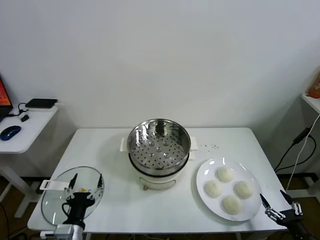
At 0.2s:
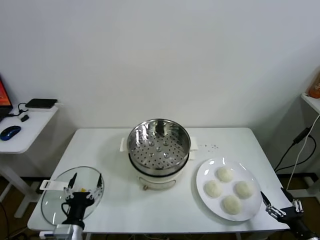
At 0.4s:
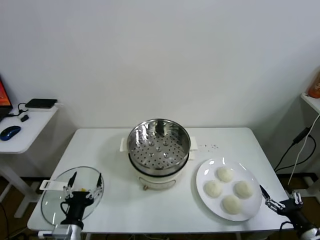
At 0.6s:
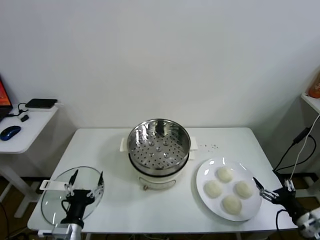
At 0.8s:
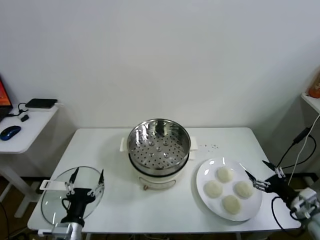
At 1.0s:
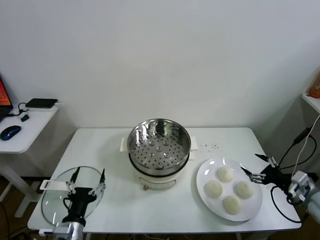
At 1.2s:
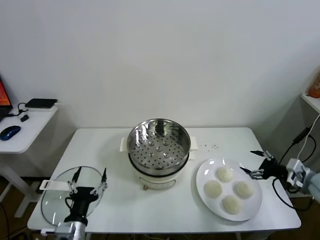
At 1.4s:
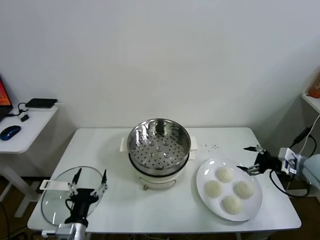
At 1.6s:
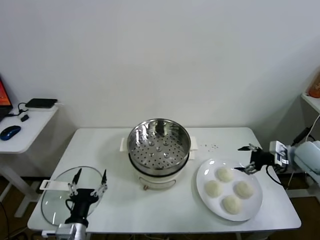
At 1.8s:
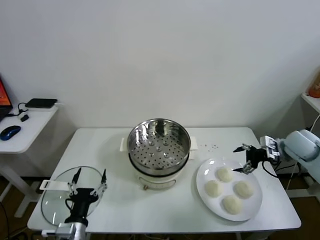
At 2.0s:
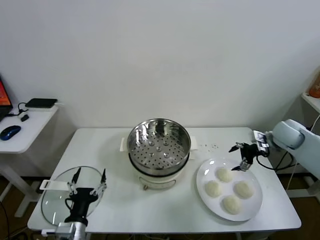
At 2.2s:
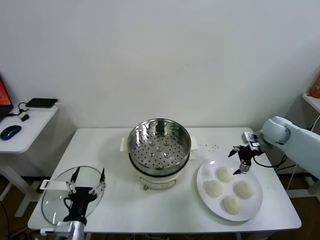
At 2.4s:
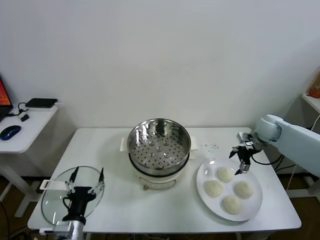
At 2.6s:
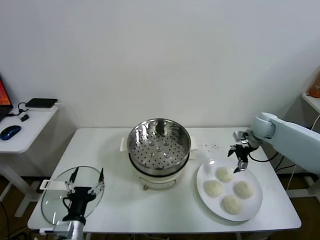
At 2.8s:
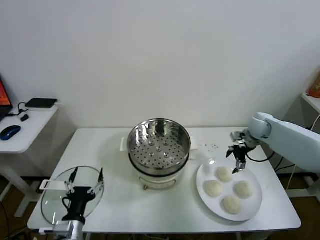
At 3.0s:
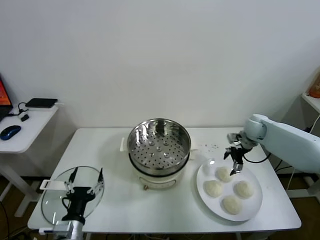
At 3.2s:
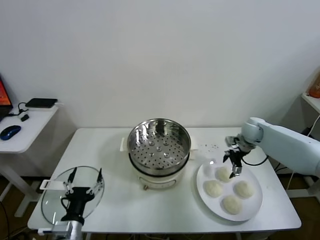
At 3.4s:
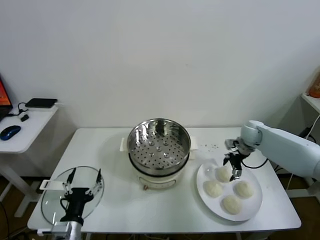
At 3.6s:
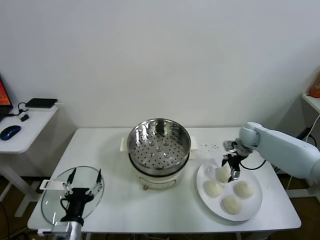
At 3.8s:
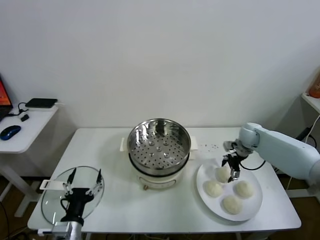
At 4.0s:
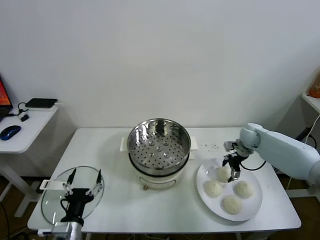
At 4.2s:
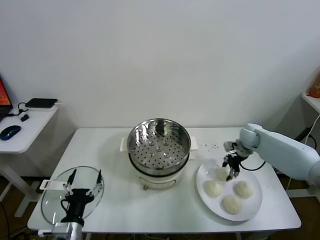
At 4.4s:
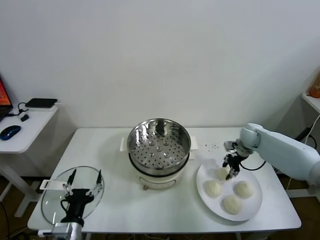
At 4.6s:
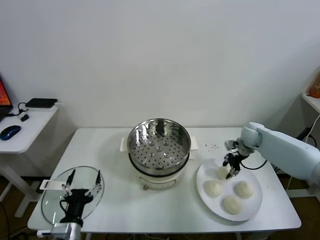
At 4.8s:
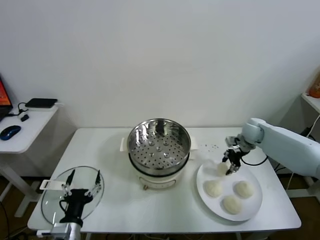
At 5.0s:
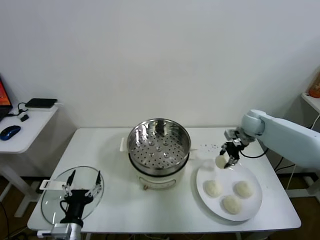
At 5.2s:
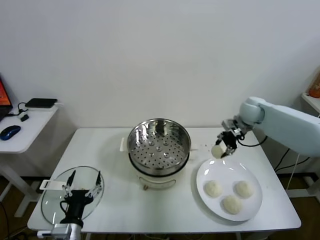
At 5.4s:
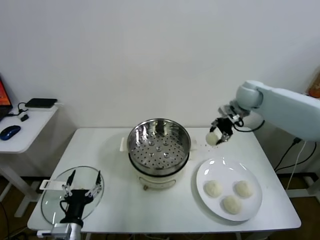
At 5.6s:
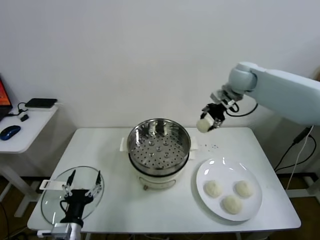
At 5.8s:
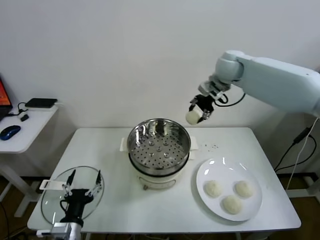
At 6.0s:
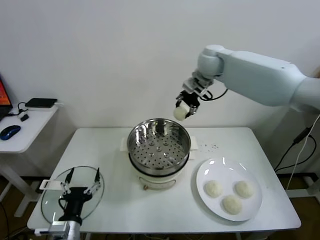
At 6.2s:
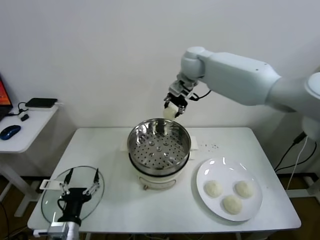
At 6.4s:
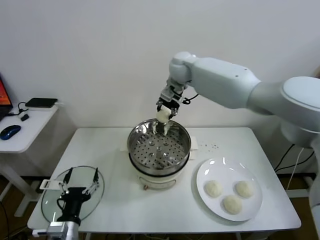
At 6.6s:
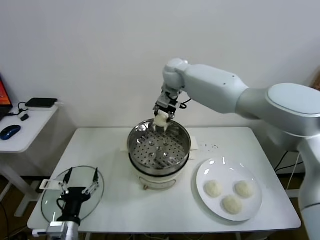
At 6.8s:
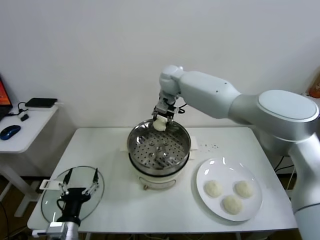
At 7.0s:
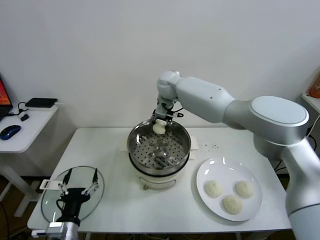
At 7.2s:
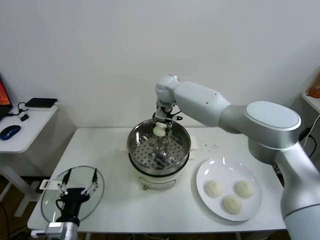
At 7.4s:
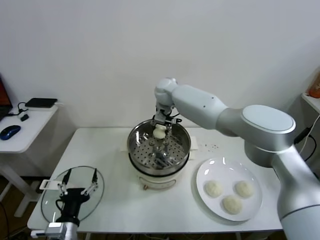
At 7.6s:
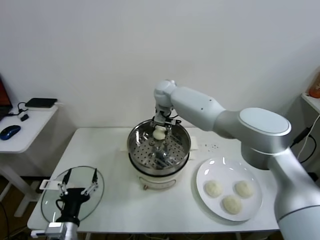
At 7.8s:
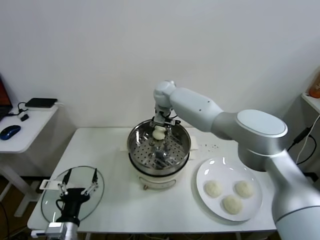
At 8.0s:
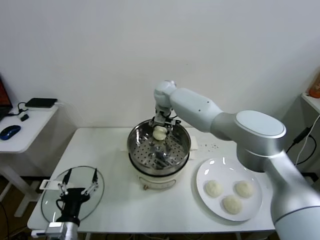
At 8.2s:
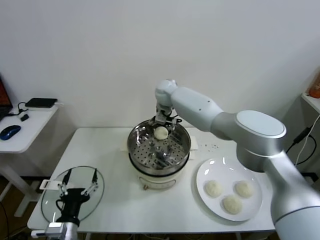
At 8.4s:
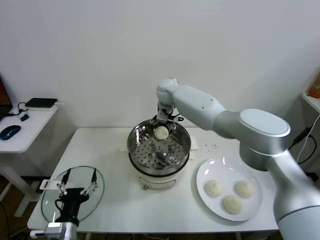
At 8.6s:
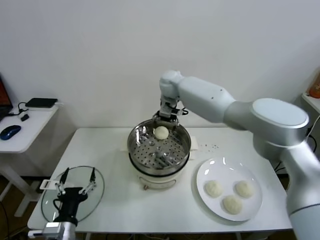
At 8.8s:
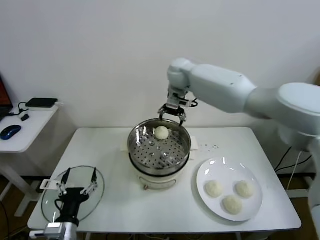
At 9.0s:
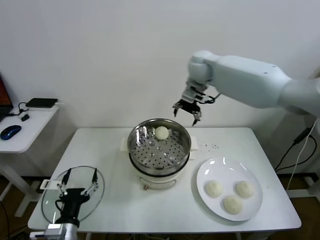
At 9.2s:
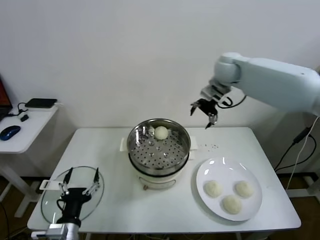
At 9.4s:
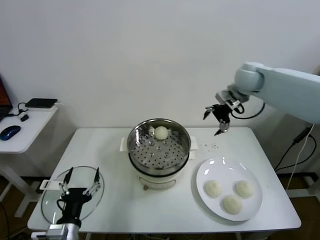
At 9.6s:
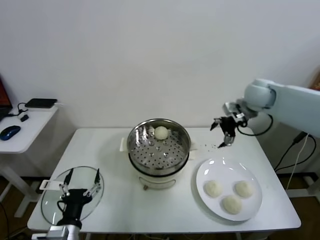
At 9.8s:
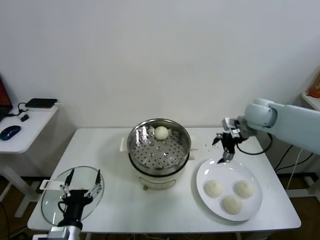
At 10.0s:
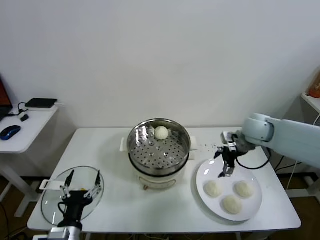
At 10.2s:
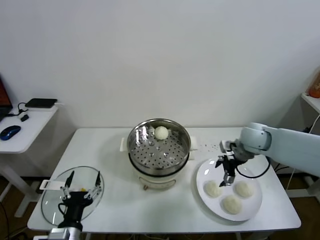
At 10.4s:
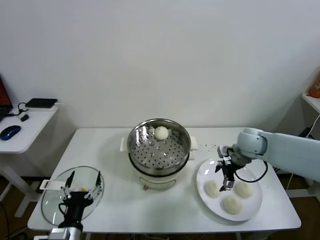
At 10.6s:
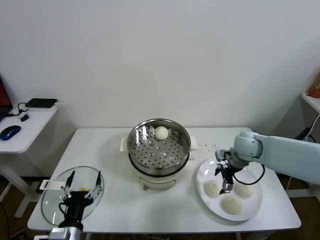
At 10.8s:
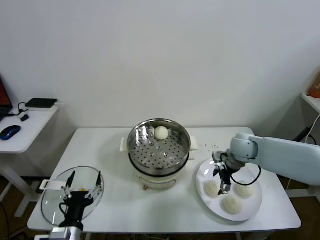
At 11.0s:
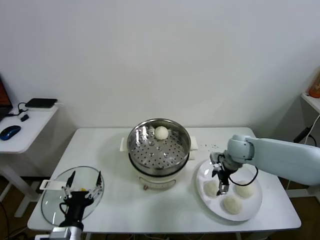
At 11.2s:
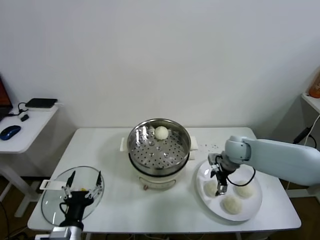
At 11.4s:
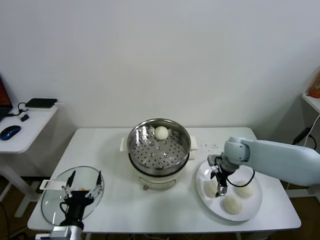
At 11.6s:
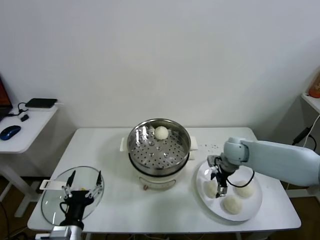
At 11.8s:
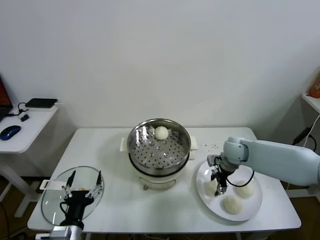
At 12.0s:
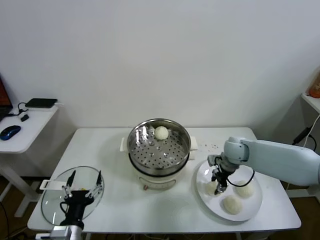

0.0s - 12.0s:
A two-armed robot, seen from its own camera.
Task of the whole recording: take steamed baozi put them in steamer.
Step, 0.0s - 4.4s: Grasp the baozi in the plate with right gripper.
Step, 4.6s - 8.2s: Place the baozi on the steamer with right gripper.
1.6s - 3.0s: The right gripper moves forward and to the left, roughly 15 cm.
3.0s - 4.4s: The right gripper closes up.
4.4s - 6.0s: The right gripper goes approximately 35 cm upward and to the left.
6.0s - 7.6s: The right gripper travels downward and to the left by about 20 cm.
7.6s - 9.0s: The right gripper goes some 20 cm to the right and upward, and opens up.
9.0s - 10.4s: The right gripper shifts roughly 30 cm downward, backward and to the right.
10.4s - 12.0s: The right gripper moves downward, roughly 5 cm, and closes up.

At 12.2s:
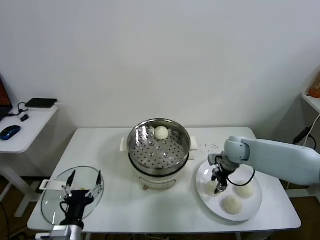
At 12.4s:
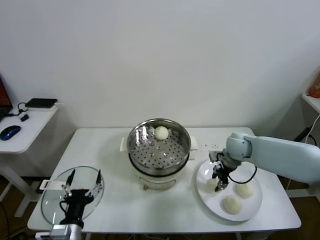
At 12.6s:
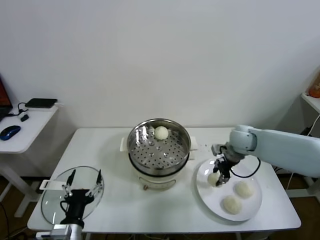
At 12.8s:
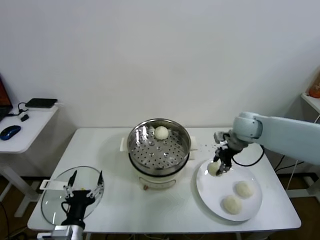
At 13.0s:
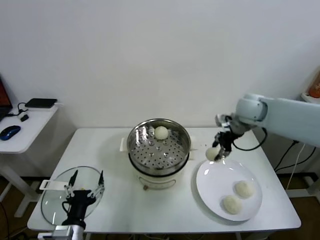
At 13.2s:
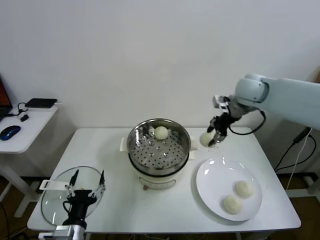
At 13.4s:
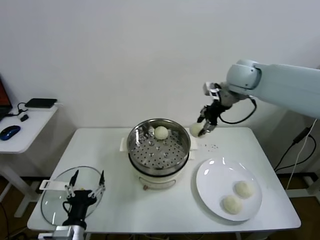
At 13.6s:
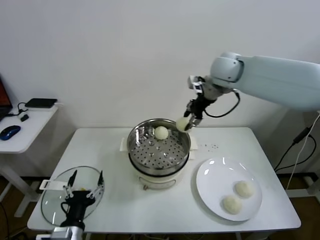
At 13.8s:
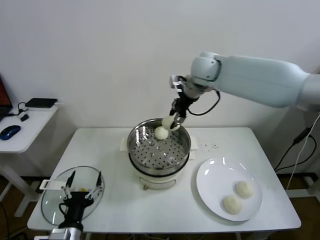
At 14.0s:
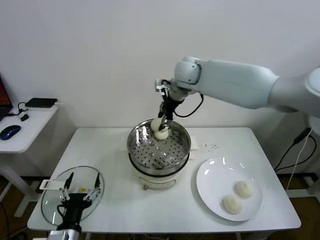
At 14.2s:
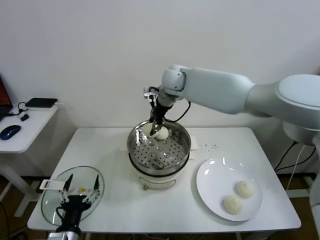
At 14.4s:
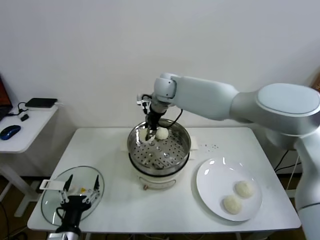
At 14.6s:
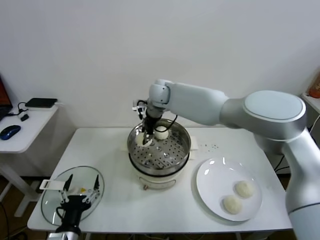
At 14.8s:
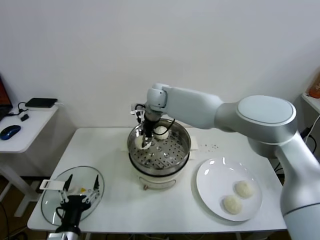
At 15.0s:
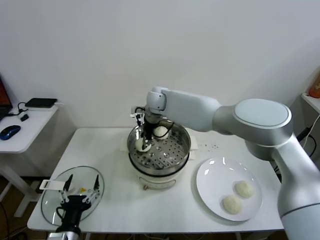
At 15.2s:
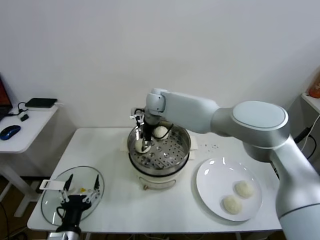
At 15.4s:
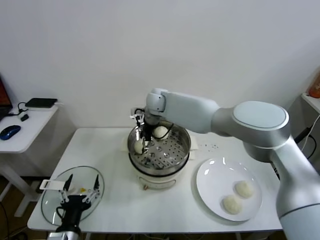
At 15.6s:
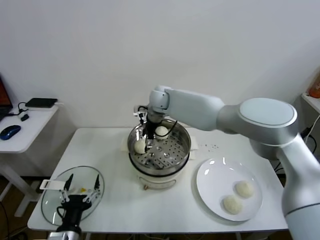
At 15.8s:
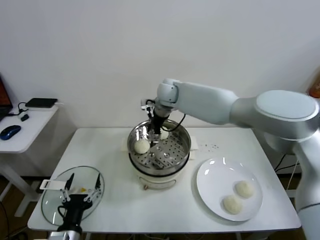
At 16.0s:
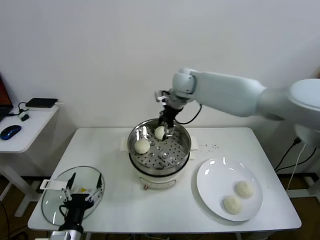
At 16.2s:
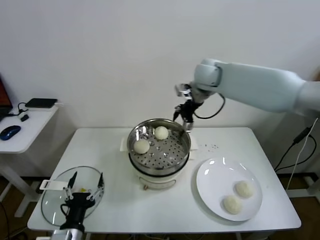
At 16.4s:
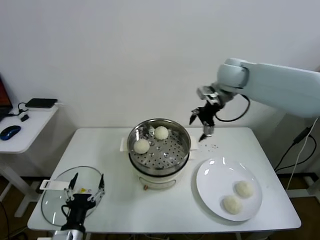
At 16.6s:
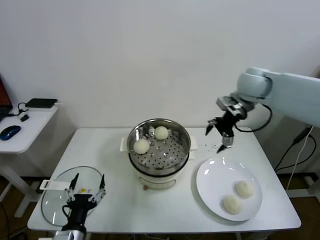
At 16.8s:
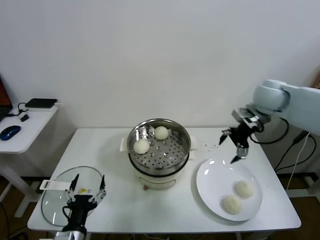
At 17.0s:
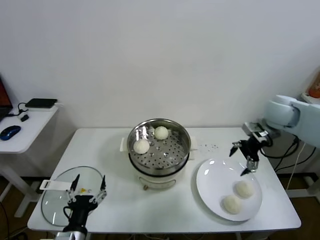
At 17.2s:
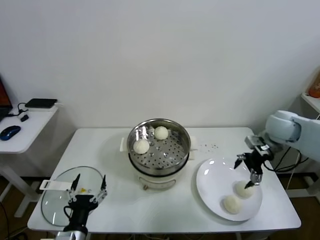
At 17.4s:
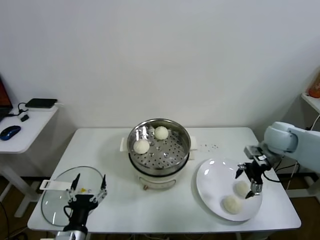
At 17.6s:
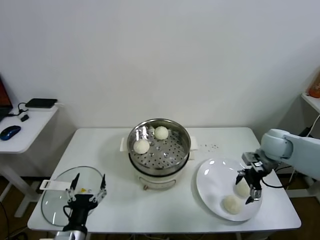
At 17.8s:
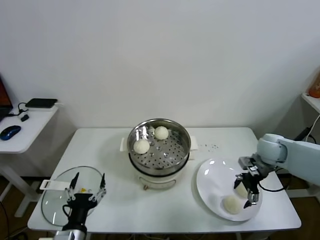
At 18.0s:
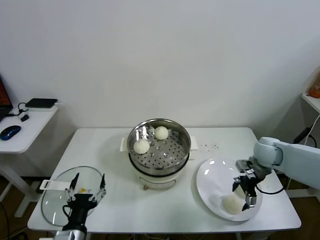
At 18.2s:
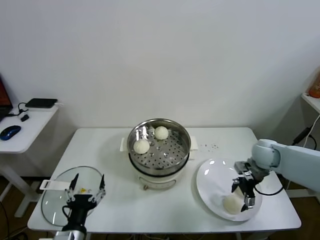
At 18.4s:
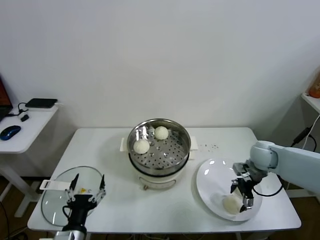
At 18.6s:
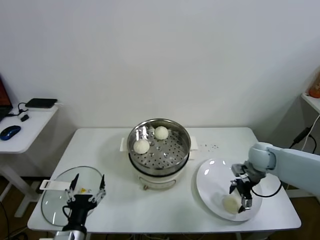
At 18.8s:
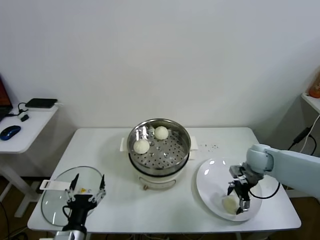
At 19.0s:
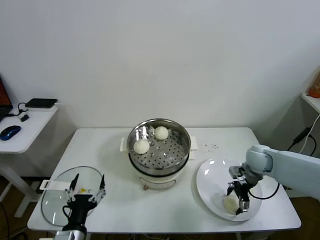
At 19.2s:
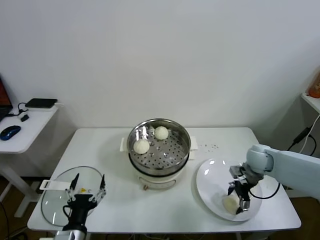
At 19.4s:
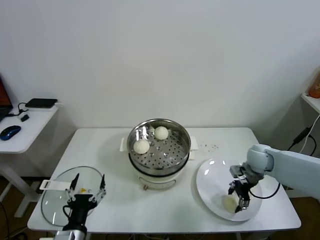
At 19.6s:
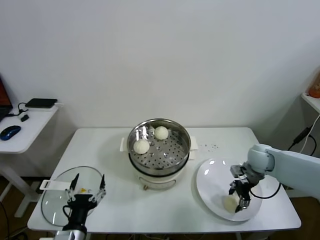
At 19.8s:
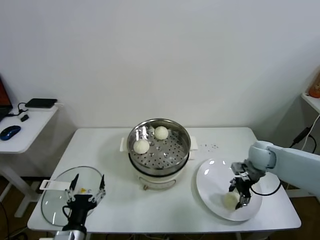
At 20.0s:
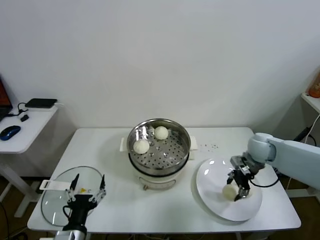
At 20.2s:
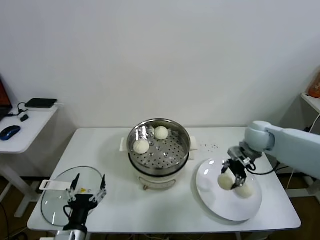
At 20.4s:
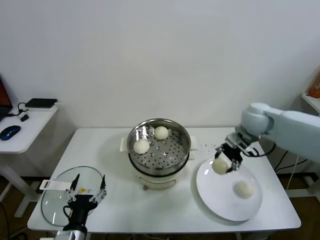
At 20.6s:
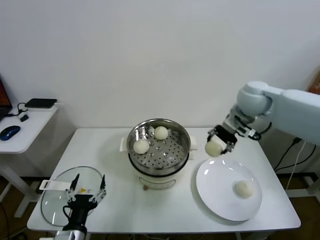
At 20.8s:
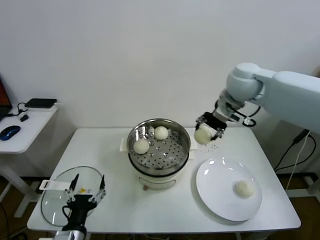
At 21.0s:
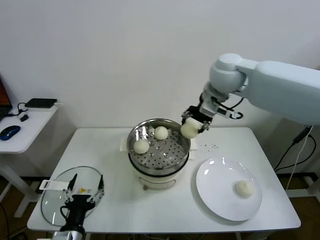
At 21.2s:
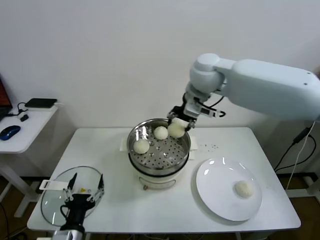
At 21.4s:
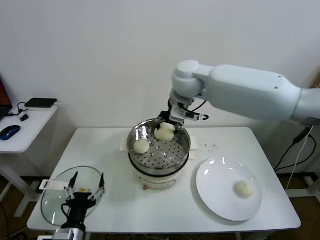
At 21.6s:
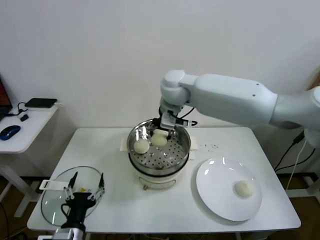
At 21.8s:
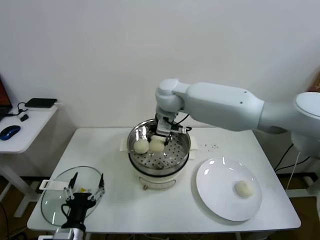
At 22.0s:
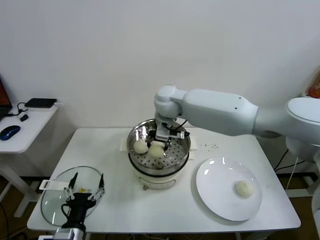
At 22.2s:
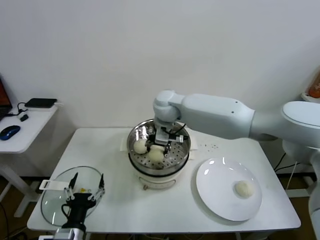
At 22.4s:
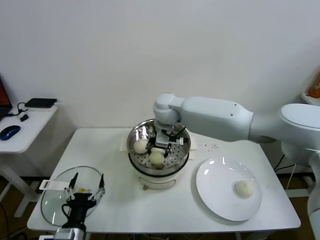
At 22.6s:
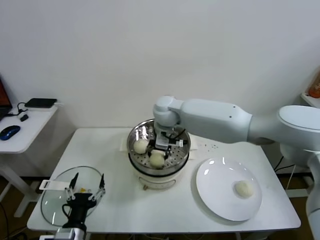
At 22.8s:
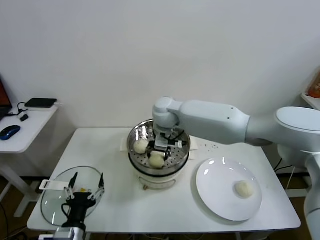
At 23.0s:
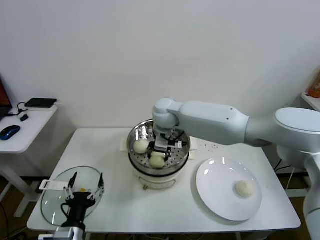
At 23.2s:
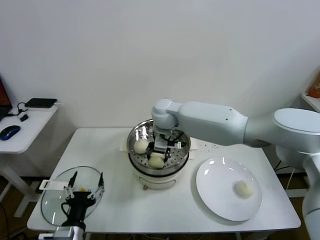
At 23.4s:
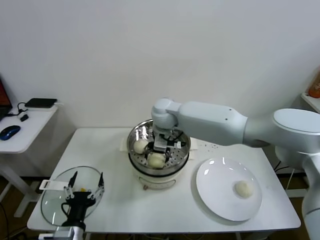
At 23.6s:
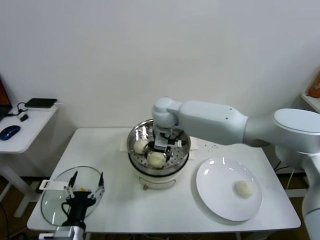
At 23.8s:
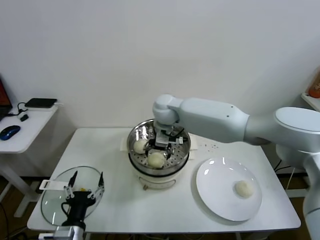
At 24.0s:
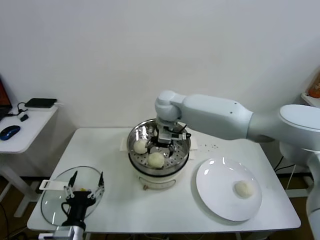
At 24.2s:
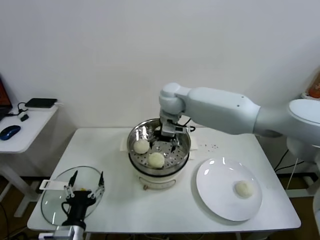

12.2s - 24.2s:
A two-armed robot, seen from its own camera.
Task of the whole recording: take steamed baozi put them in steamer.
Step, 12.2s - 15.4s: Place the baozi on the steamer with right gripper.
Step, 15.6s - 19.4s: Grasp the baozi in the plate with right gripper.
Step, 19.6s - 23.4s: Place the baozi on the steamer with right gripper.
12.2s - 13.8s: The right gripper moves upward and to the left, about 30 cm.
13.8s - 15.2s: The right gripper goes roughly 20 cm downward and to the left.
15.2s - 16.6s: The right gripper shifts approximately 30 cm to the right, and opens up.
16.6s - 18.2s: The right gripper goes approximately 25 cm downward.
18.2s - 19.8s: The right gripper closes.
19.8s - 21.2s: The right gripper moves upward and to the left, approximately 40 cm.
21.2s - 22.6s: The right gripper moves downward and to the left, roughly 15 cm.
22.6s - 24.2s: The right gripper opens its fingers.
